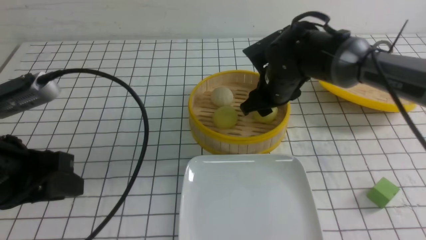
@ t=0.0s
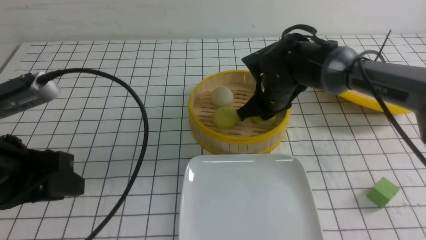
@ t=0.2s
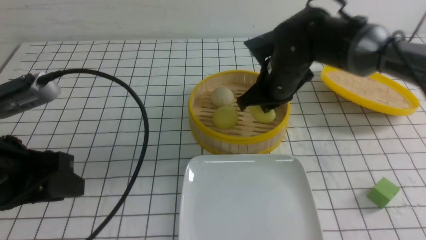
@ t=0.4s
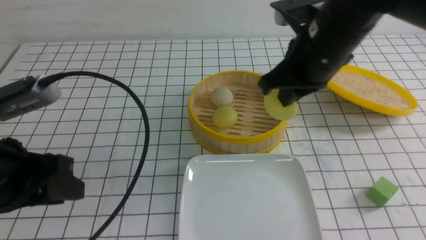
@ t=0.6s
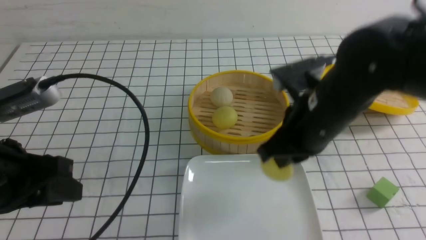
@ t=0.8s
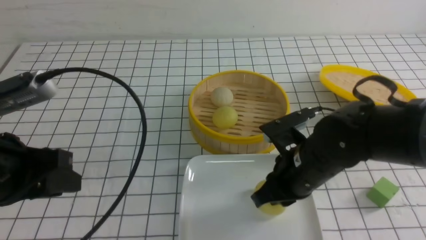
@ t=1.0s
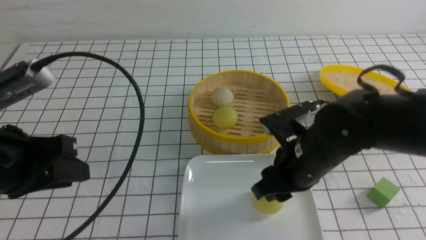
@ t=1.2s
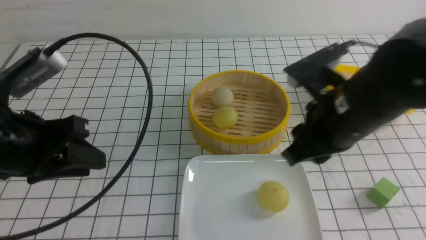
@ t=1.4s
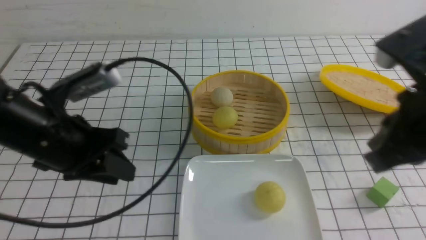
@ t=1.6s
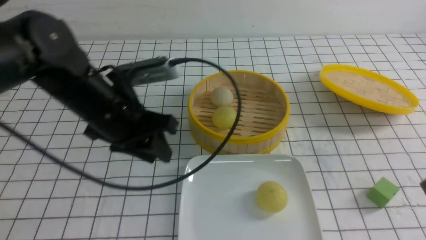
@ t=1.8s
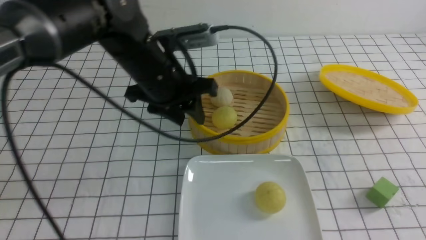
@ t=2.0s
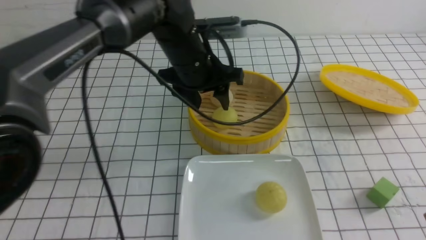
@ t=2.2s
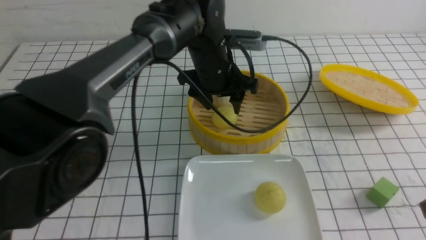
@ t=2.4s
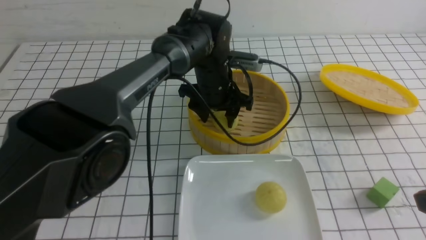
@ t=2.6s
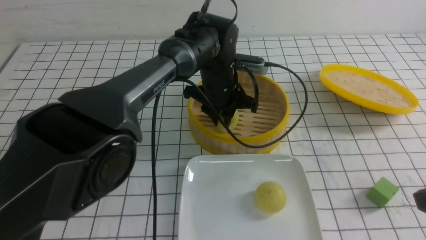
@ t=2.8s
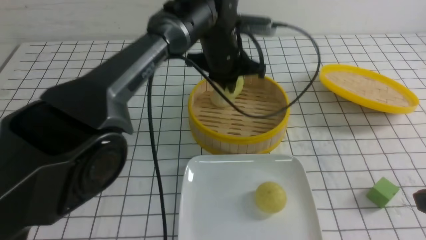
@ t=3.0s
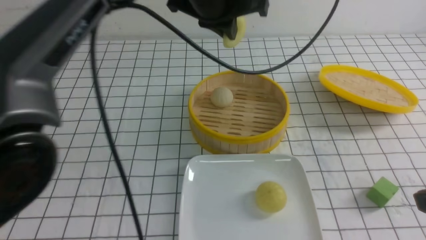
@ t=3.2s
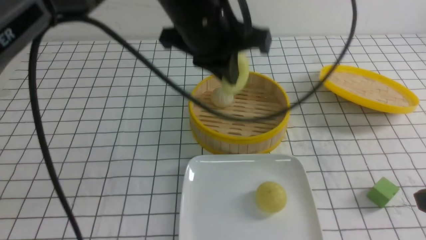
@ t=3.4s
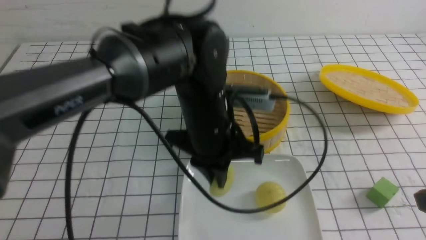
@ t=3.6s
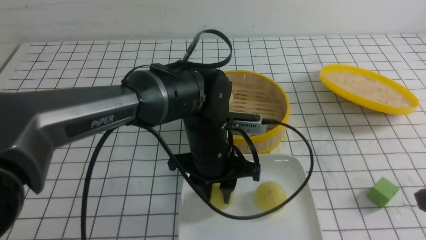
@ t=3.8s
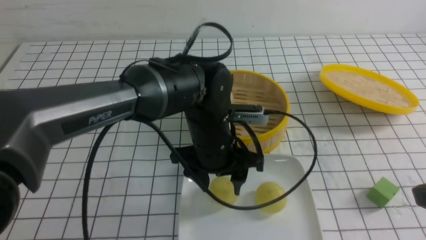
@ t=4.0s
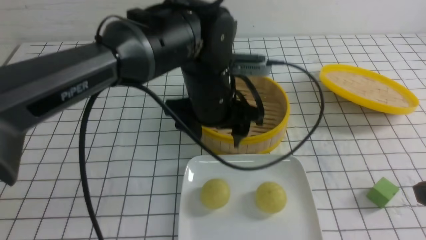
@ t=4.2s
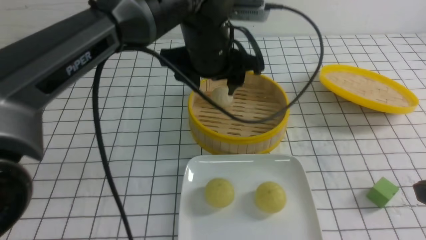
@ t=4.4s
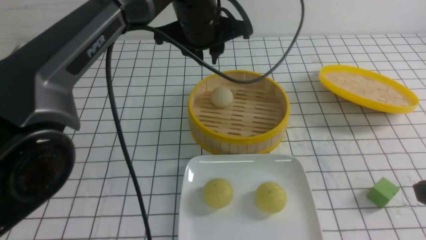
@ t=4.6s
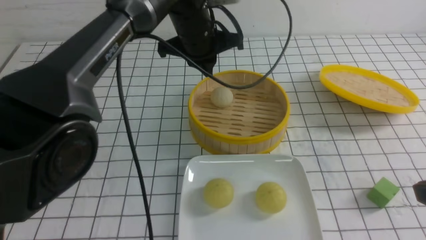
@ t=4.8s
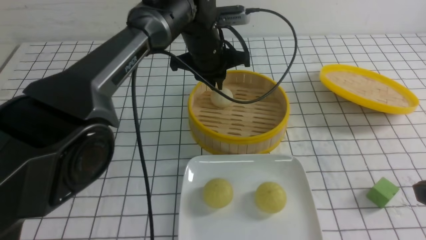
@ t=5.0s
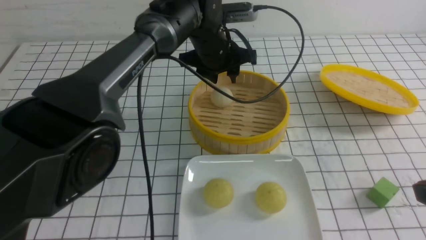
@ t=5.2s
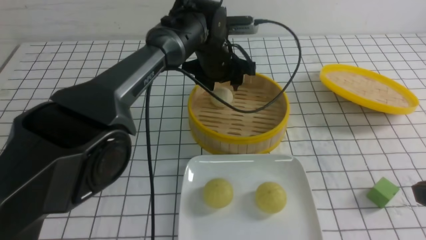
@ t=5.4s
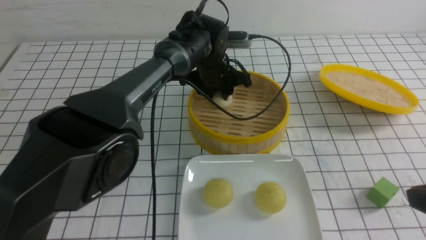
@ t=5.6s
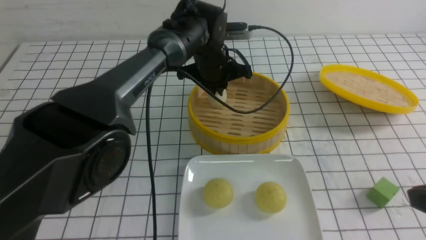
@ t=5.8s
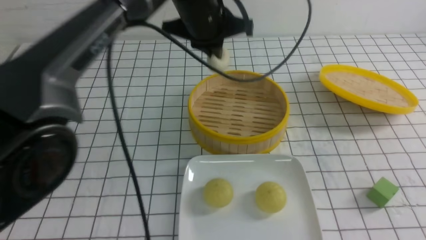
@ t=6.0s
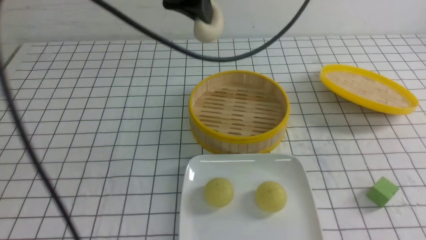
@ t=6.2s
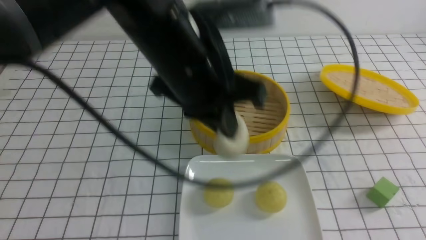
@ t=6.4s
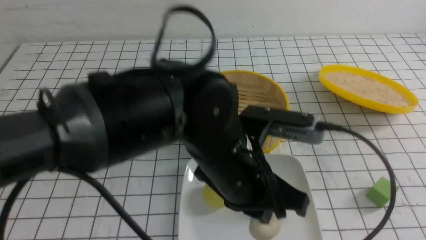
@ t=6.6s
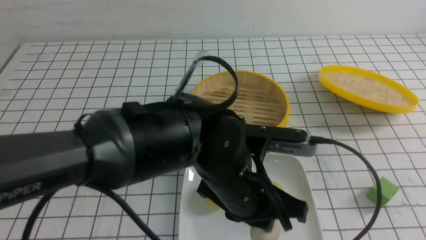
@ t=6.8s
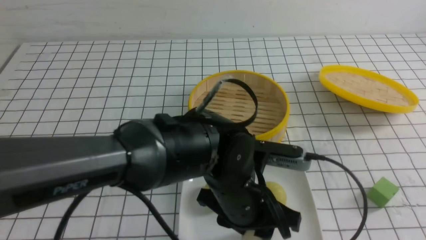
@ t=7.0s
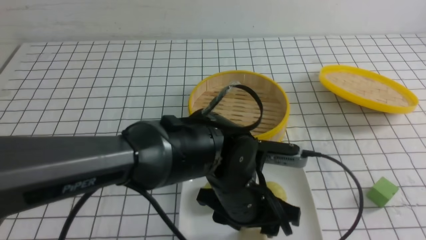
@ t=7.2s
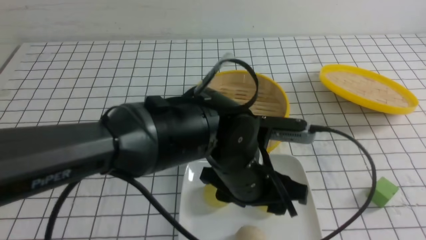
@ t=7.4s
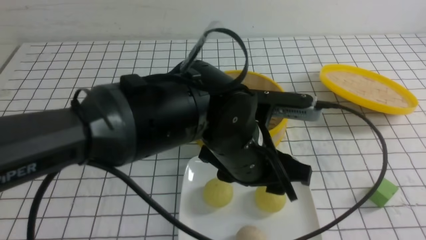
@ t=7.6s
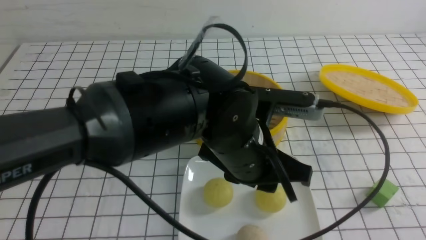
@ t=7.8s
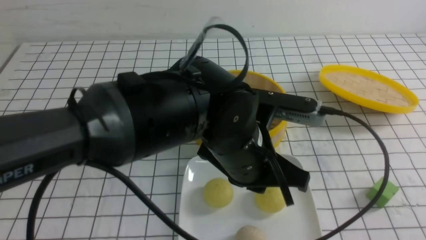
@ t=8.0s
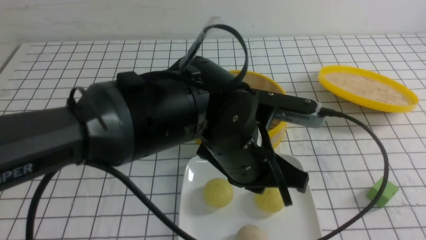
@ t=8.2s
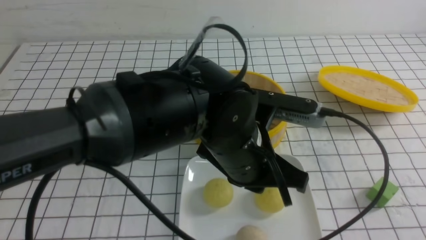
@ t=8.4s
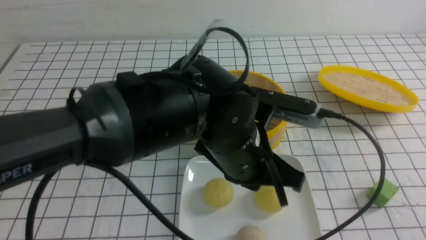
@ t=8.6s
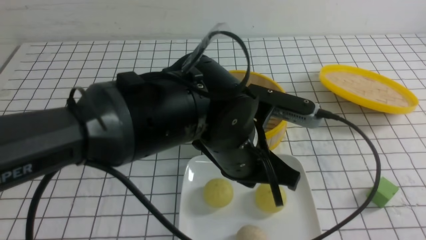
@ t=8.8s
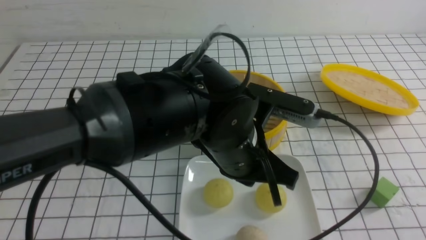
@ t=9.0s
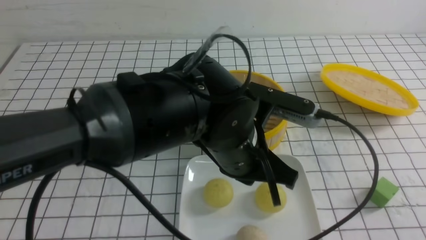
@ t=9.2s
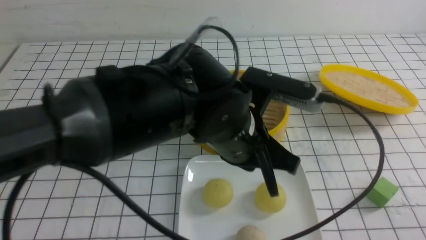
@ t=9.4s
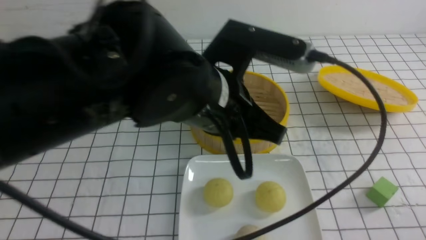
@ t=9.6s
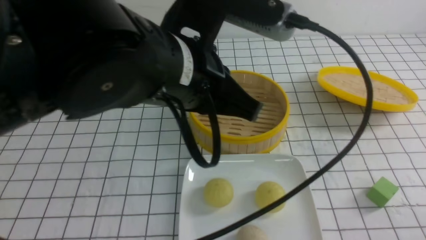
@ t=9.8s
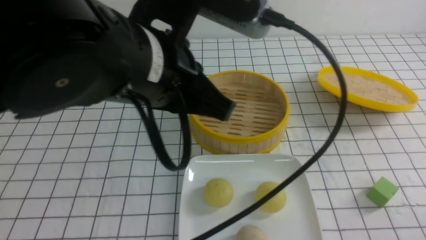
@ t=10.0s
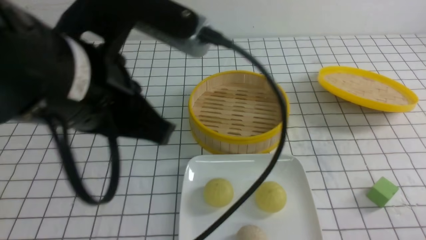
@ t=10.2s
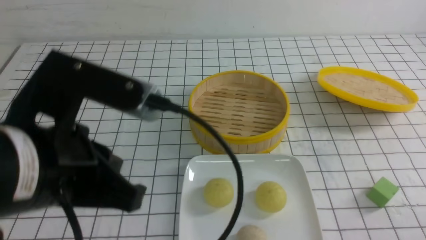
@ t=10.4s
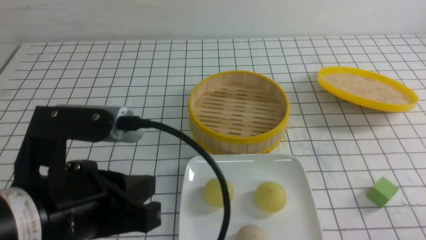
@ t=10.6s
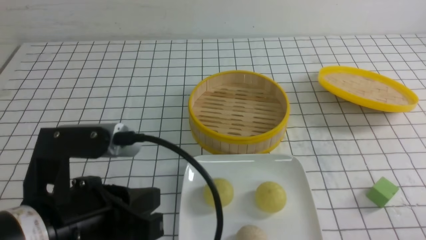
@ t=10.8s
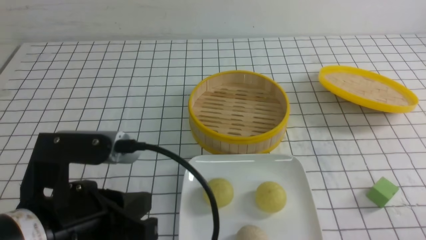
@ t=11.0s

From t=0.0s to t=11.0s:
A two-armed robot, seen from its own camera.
Step, from t=0.4s to t=1.2s: use the right arm to put the steamed stuffed bun into the plate.
Step, from t=1.4s to t=2.8s: use the left arm to grab the steamed stuffed bun that is closest to it.
Step, from t=3.0s to t=4.0s: use the left arm to put the steamed stuffed bun into the plate.
Step, from t=4.2s to t=5.6s: use the left arm to grab the steamed stuffed bun that is closest to it.
Step, from t=6.0s to t=7.4s: use the left arm to put the steamed stuffed bun into the plate.
From t=0.0s to t=1.6s: The right gripper travels backward, upward and to the right by some 30 cm, and closes its fingers; the left gripper is displaced forward by roughly 5 cm.
From t=1.6s to t=3.2s: The right gripper goes some 10 cm backward and to the right, while the left gripper moves to the right and forward, some 20 cm, and closes.
From t=3.2s to t=4.8s: The left gripper is displaced downward and forward by about 10 cm, and opens, then closes once more.
From t=4.8s to t=6.2s: The left gripper heads backward and upward, covering roughly 15 cm, and opens, then closes again. The right gripper changes place by about 5 cm.
From t=6.2s to t=7.8s: The right gripper moves backward, approximately 10 cm. Meanwhile the left gripper moves downward, backward and to the right, approximately 15 cm, and opens.
From t=7.8s to t=9.4s: The right gripper is displaced downward and forward by roughly 15 cm. The left gripper closes its fingers.
From t=9.4s to t=11.0s: The left gripper travels to the left and backward by approximately 20 cm.

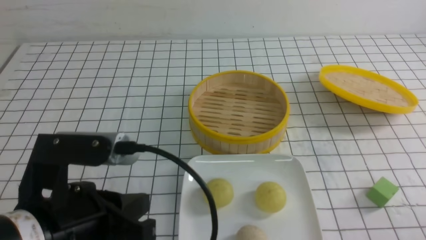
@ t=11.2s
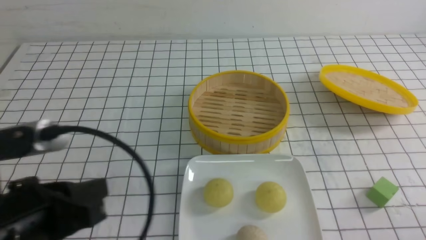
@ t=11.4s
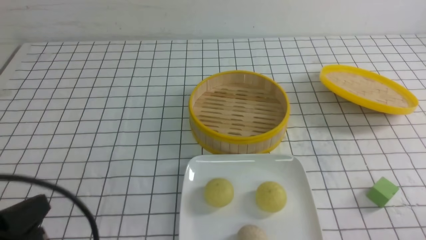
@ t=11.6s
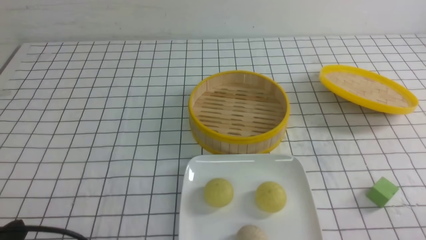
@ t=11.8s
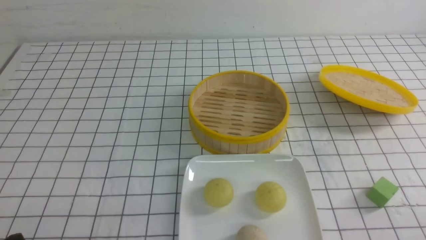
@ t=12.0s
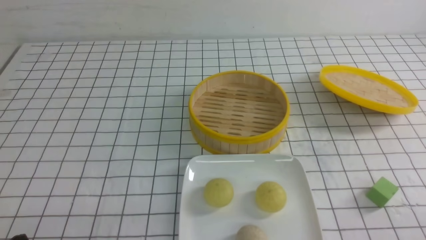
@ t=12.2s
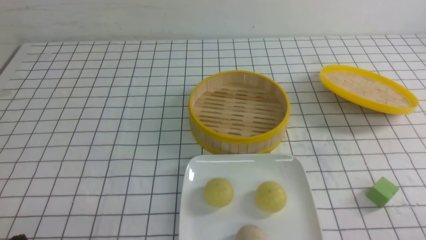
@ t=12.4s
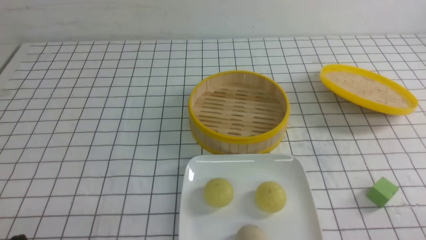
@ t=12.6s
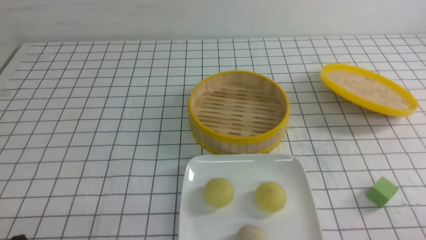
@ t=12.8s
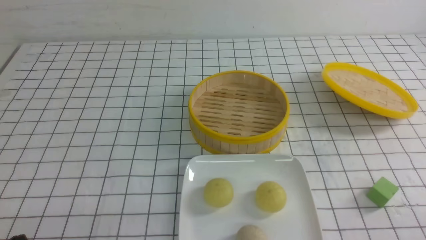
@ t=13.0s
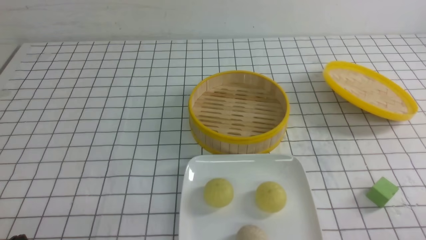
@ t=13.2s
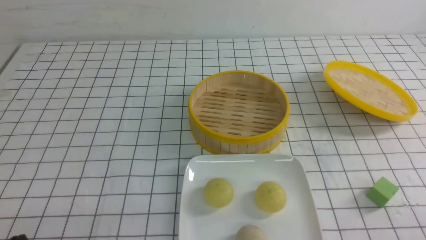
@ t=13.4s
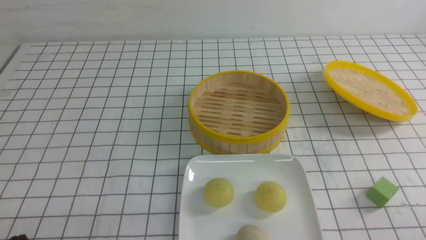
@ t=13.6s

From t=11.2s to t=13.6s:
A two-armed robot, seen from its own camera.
From t=11.2s to t=12.4s: The left gripper heads downward, to the left and backward, covering roughly 15 cm.
From t=12.4s to t=13.6s: Both grippers stay about where they are.
